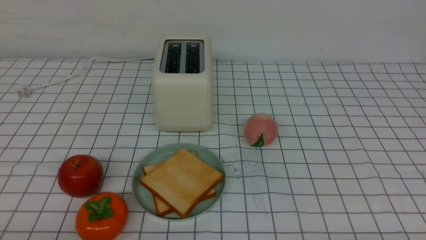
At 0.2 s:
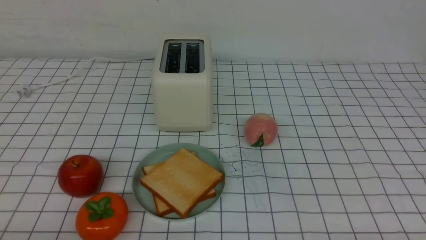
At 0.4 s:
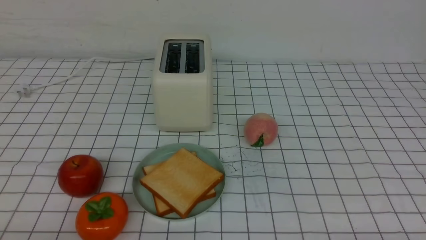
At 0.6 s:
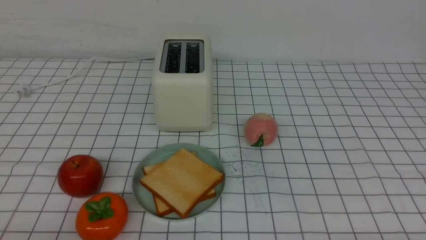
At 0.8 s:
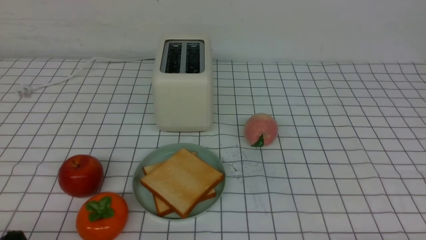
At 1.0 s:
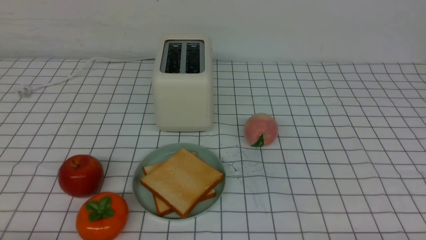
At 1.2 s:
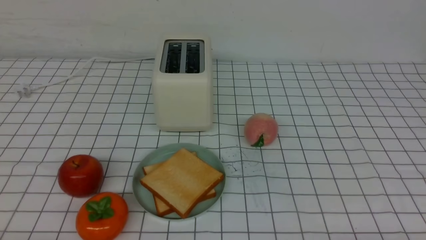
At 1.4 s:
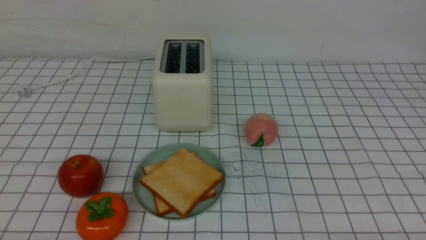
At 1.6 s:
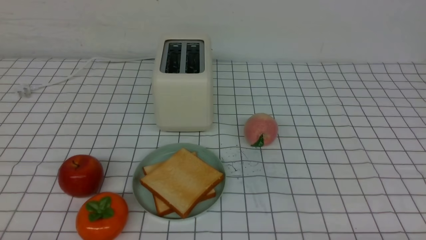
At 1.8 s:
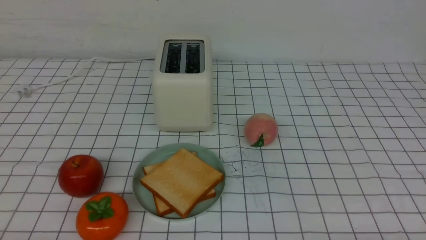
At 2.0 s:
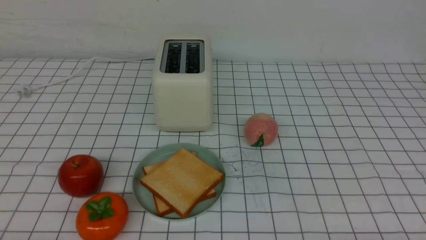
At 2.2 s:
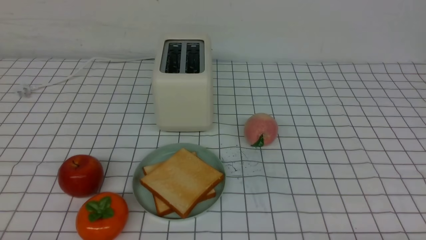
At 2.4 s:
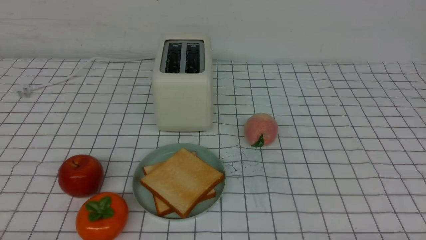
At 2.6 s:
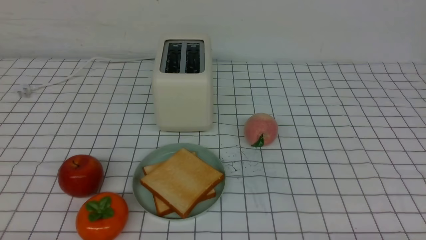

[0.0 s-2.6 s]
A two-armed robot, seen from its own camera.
Task of the whole recording: take toasted bread from bread machine on white checkered table place on plate.
1.2 to 2.6 s: Both grippers stay put.
